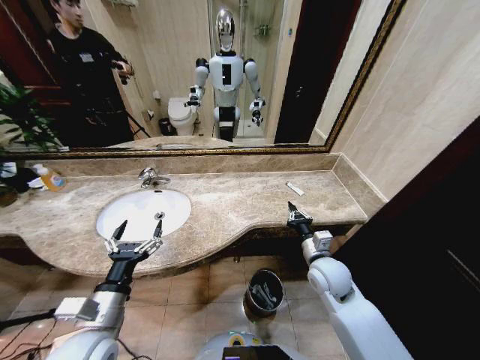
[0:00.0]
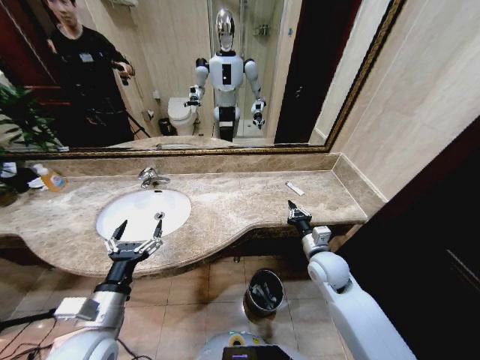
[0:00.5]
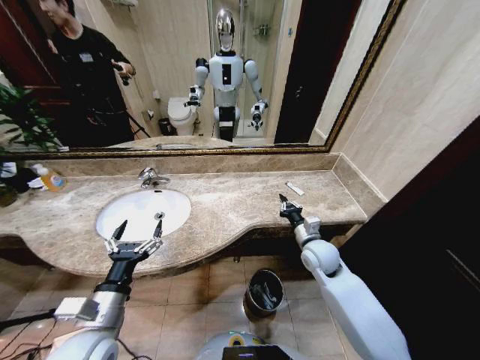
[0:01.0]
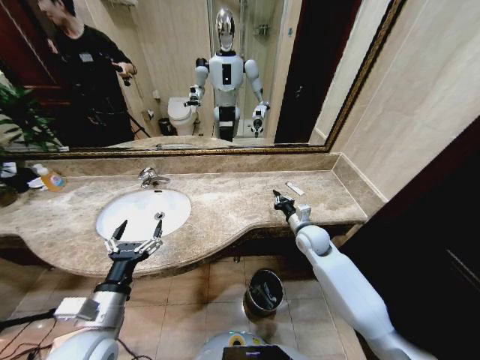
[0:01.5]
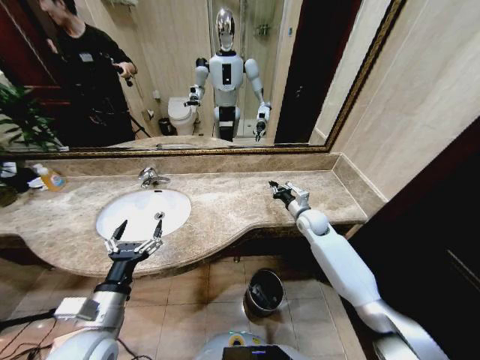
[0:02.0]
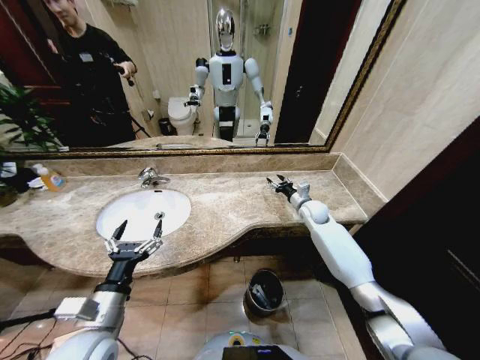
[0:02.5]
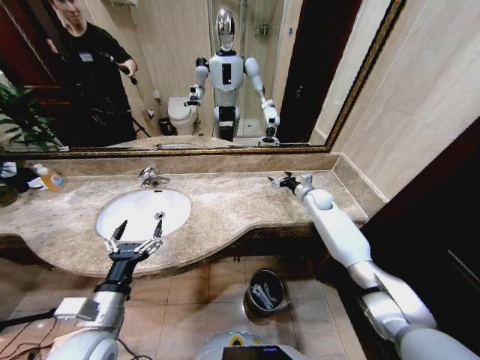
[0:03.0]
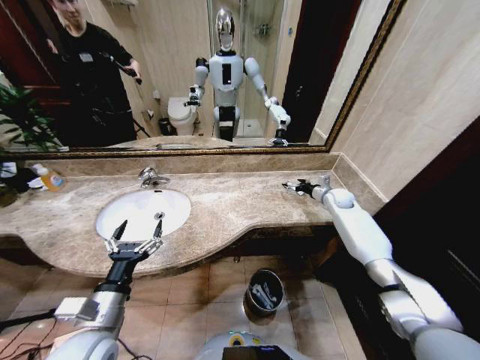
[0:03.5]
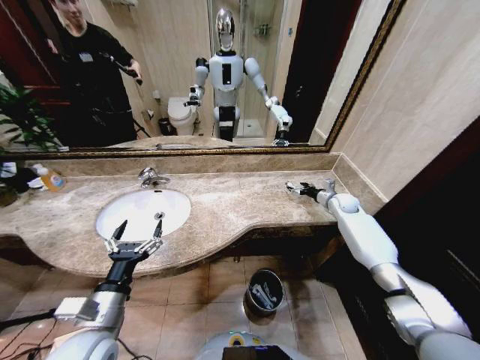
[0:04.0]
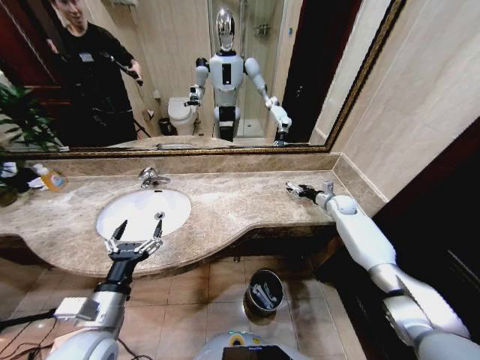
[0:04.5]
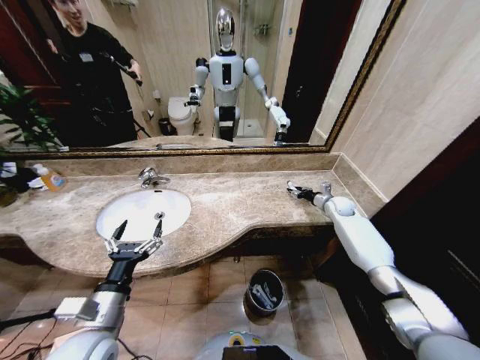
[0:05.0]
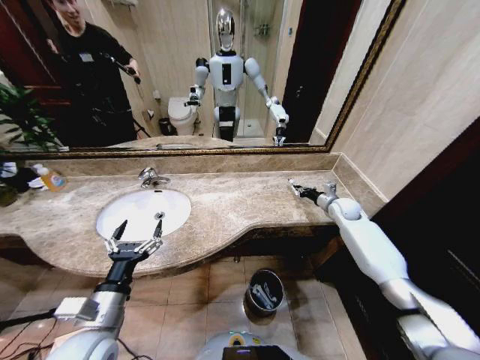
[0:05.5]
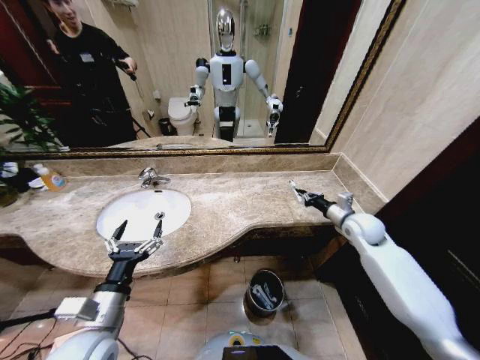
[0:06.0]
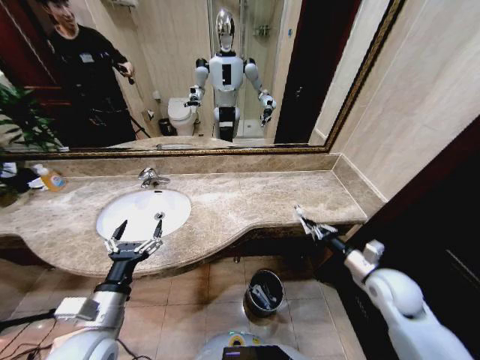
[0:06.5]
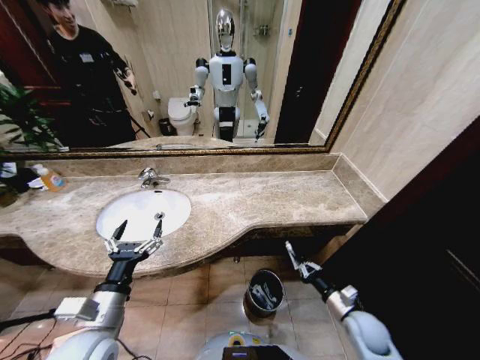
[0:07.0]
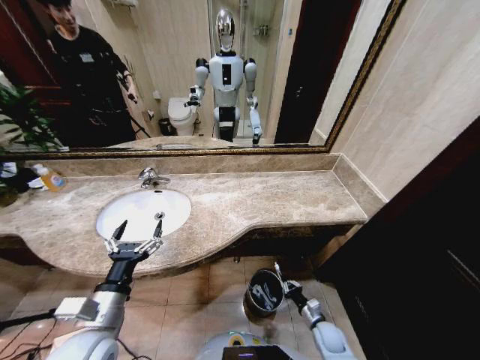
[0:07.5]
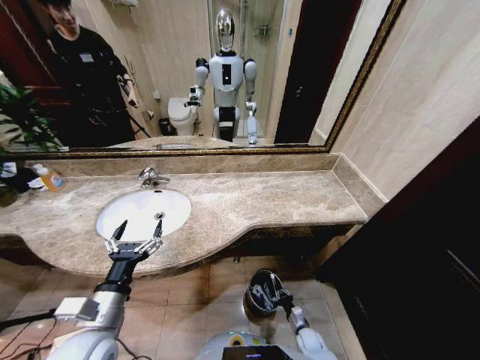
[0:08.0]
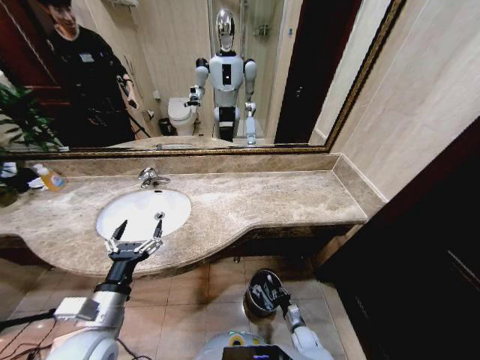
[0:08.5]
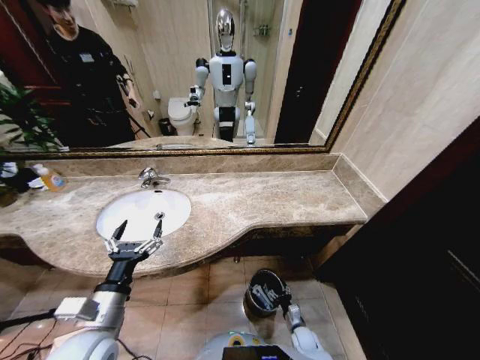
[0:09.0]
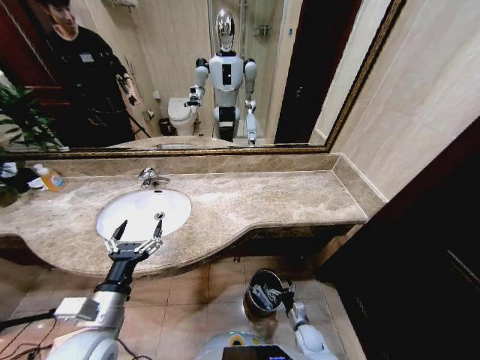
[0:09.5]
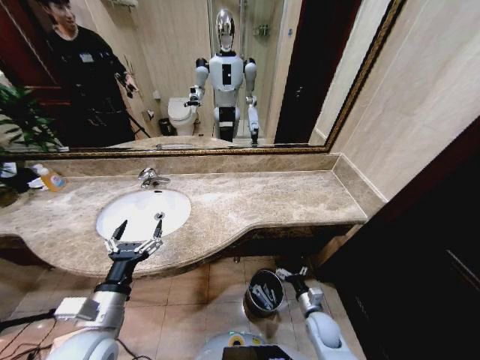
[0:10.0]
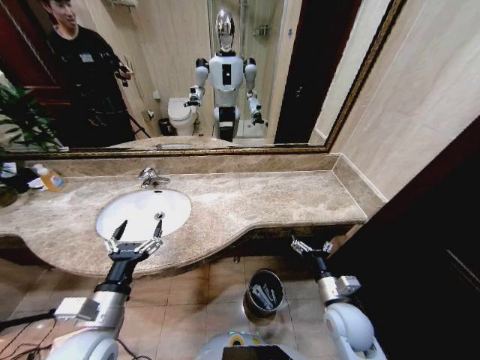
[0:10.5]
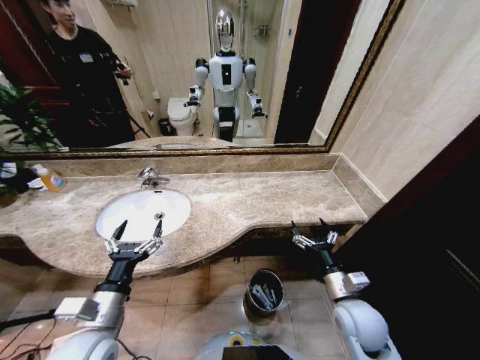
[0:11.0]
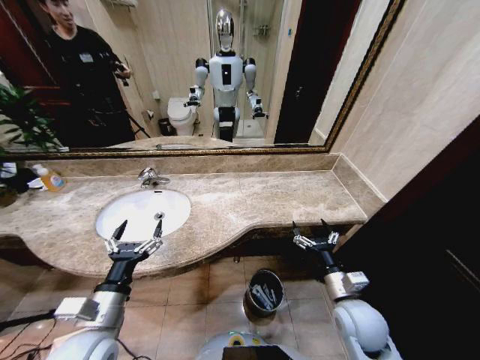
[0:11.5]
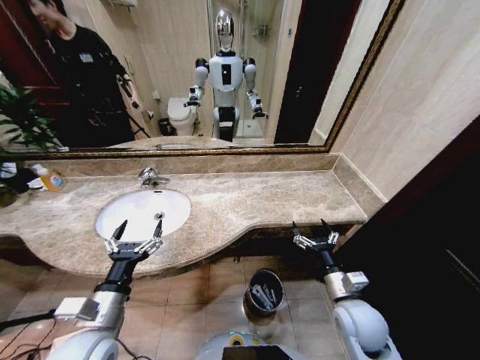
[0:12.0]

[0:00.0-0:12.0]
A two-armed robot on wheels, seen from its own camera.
Task of the whole recording: Pick up the trash from the sink and place it in the trash bin.
0:00.0 to 0:02.0: The right gripper is displaced forward by some 20 cm.
0:02.0 to 0:04.0: The right gripper moves to the right and forward, approximately 20 cm, and opens up.
0:04.0 to 0:06.0: The right gripper travels backward by some 15 cm, and closes its fingers.
0:06.0 to 0:08.0: The right gripper shifts some 50 cm downward and backward.
0:08.0 to 0:10.0: The right gripper shifts approximately 15 cm upward, and opens.
0:10.0 to 0:12.0: The right gripper shifts roughly 20 cm upward.
